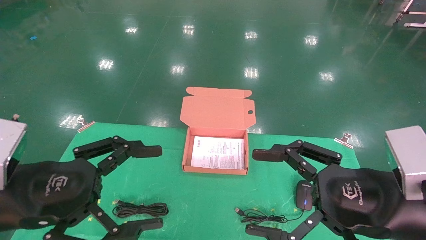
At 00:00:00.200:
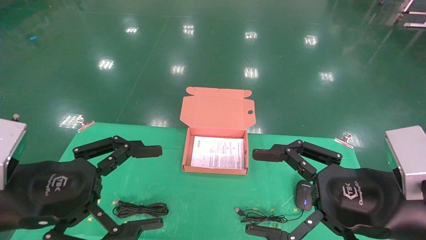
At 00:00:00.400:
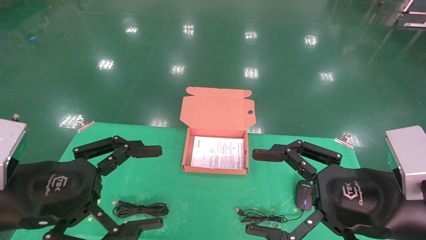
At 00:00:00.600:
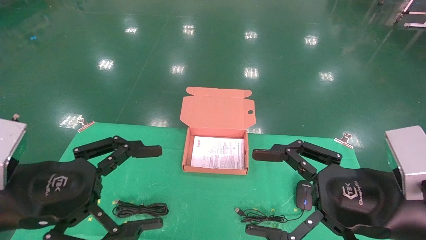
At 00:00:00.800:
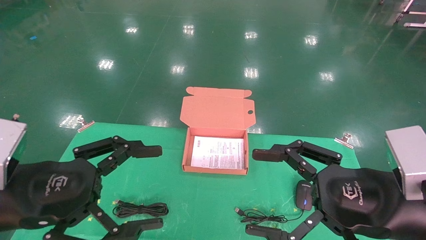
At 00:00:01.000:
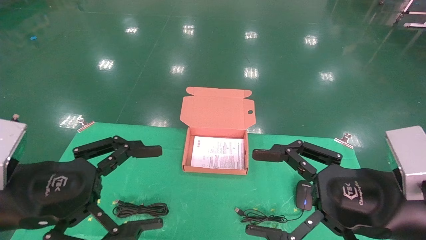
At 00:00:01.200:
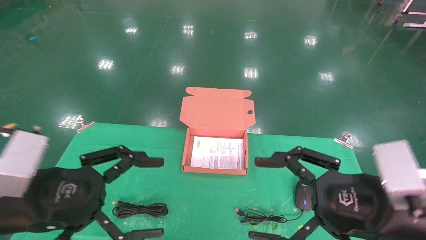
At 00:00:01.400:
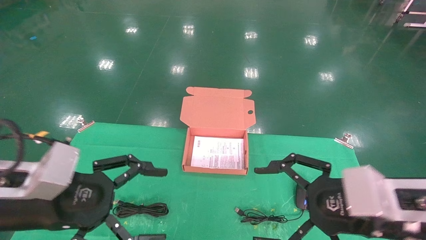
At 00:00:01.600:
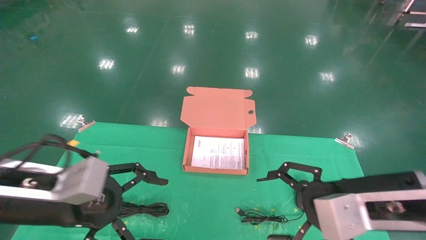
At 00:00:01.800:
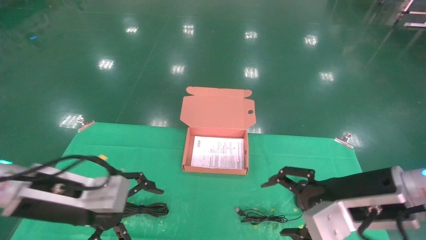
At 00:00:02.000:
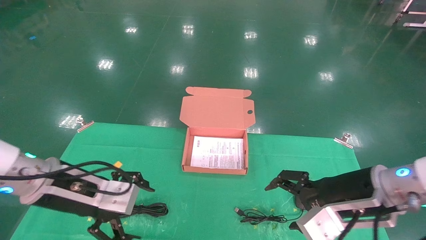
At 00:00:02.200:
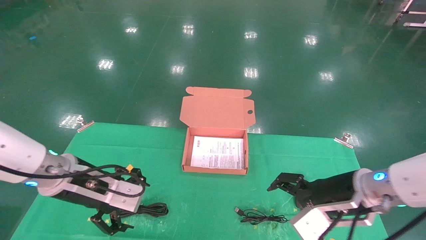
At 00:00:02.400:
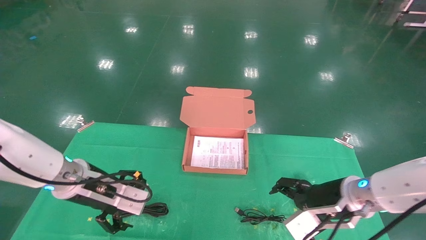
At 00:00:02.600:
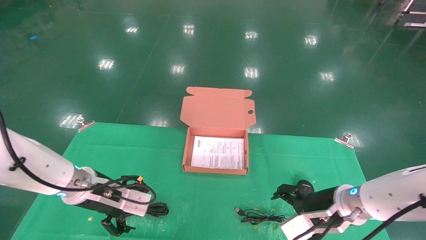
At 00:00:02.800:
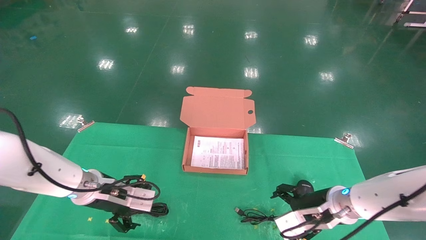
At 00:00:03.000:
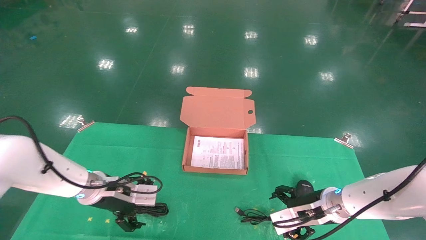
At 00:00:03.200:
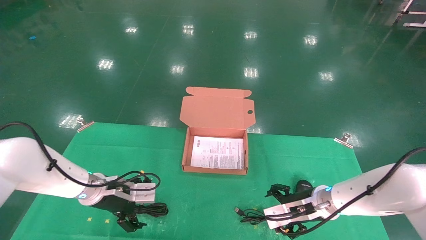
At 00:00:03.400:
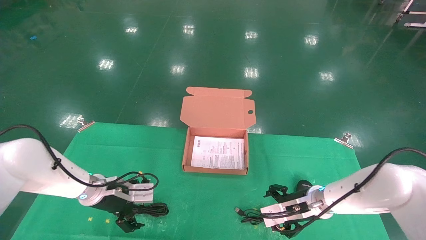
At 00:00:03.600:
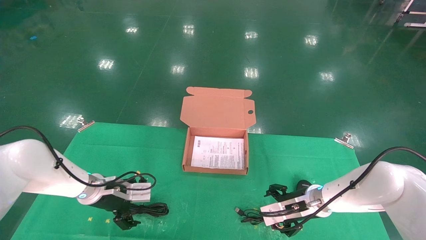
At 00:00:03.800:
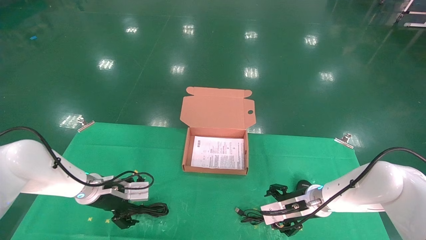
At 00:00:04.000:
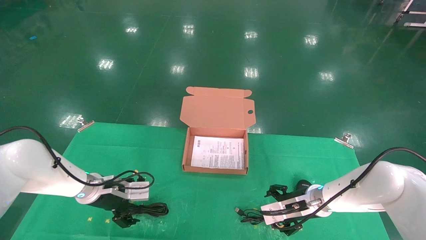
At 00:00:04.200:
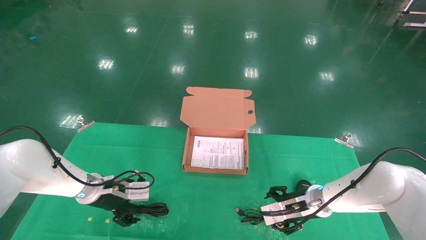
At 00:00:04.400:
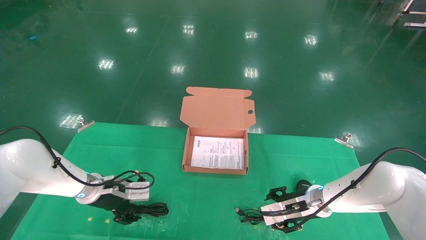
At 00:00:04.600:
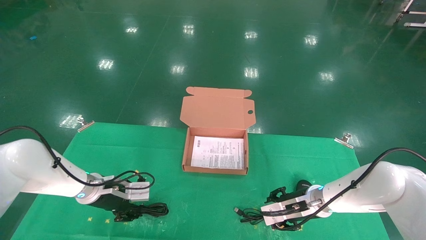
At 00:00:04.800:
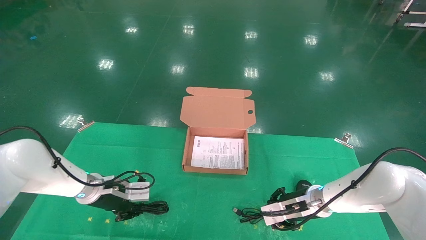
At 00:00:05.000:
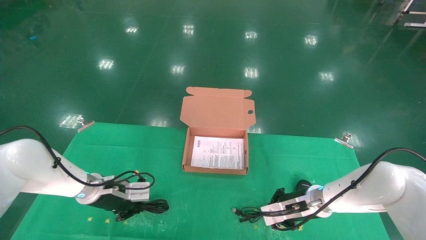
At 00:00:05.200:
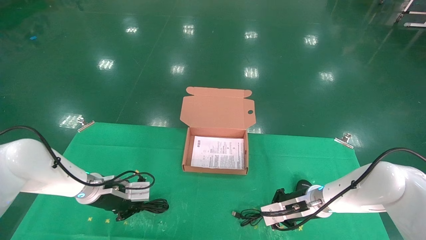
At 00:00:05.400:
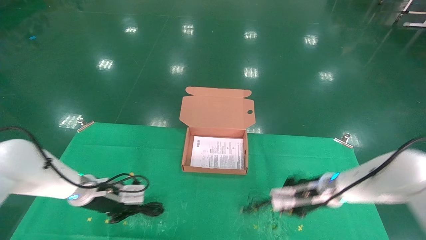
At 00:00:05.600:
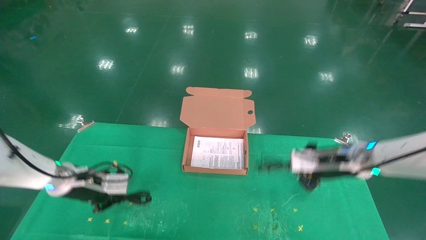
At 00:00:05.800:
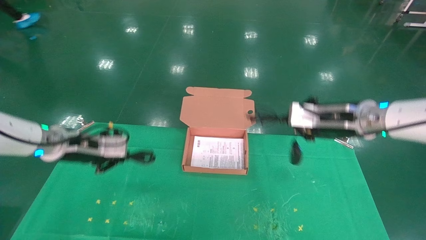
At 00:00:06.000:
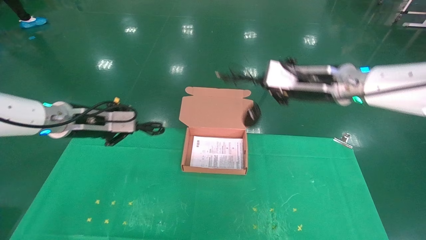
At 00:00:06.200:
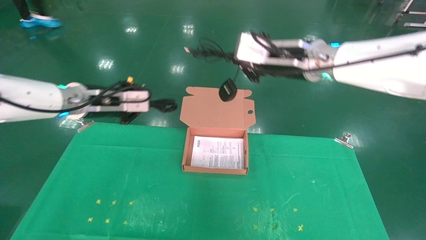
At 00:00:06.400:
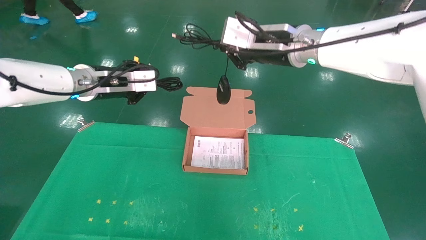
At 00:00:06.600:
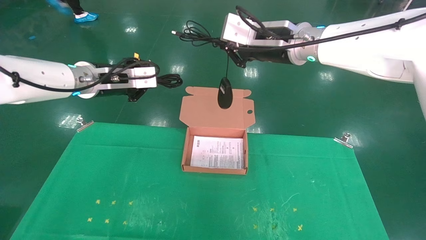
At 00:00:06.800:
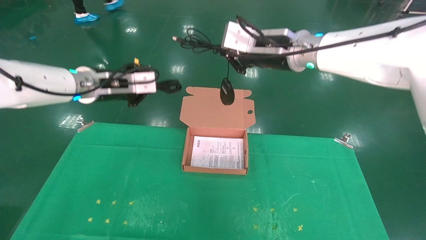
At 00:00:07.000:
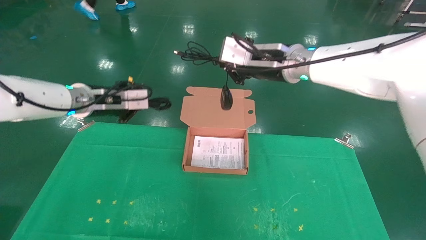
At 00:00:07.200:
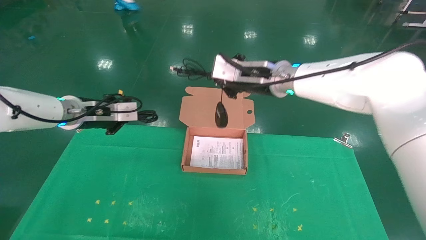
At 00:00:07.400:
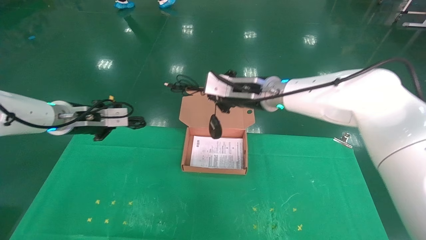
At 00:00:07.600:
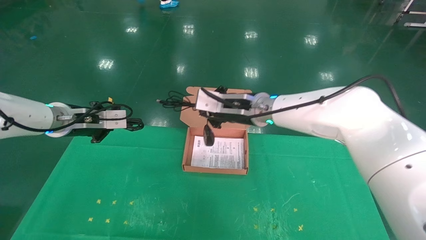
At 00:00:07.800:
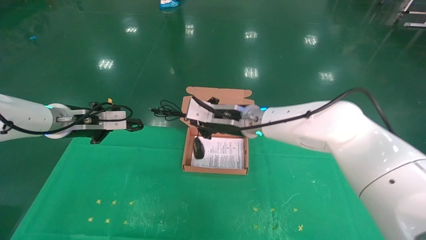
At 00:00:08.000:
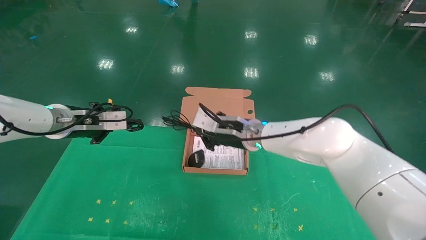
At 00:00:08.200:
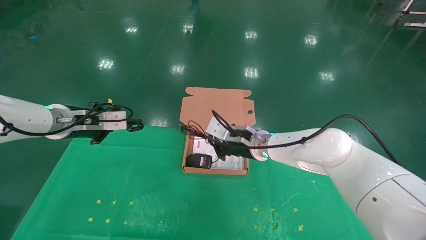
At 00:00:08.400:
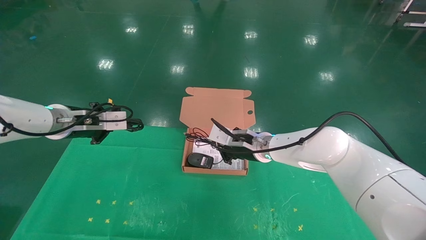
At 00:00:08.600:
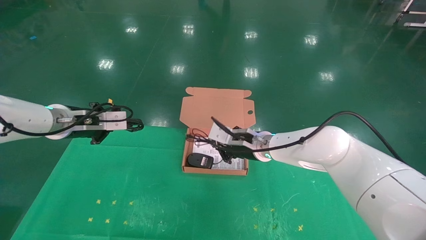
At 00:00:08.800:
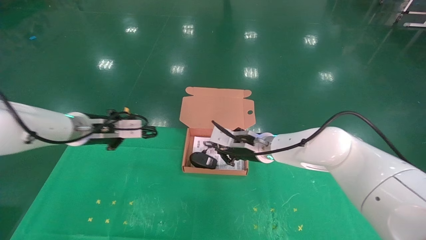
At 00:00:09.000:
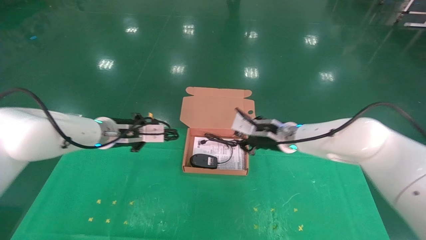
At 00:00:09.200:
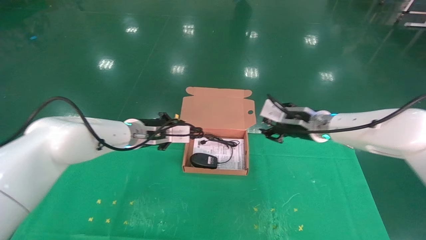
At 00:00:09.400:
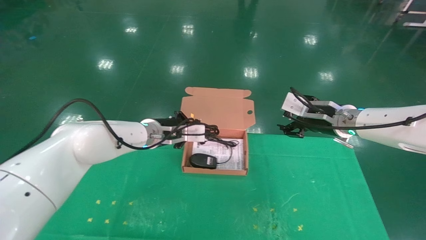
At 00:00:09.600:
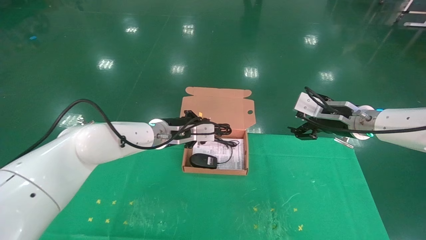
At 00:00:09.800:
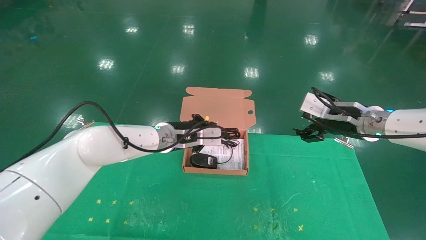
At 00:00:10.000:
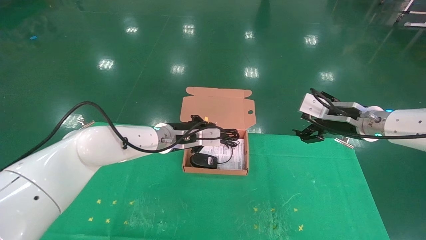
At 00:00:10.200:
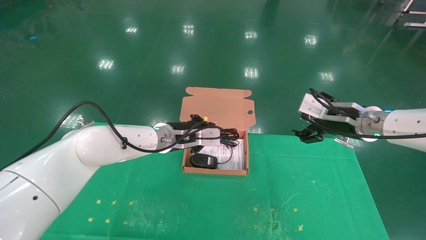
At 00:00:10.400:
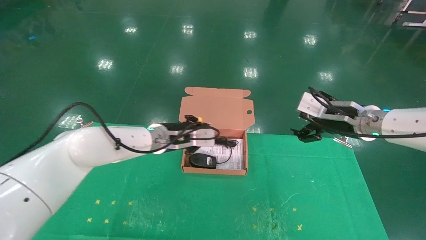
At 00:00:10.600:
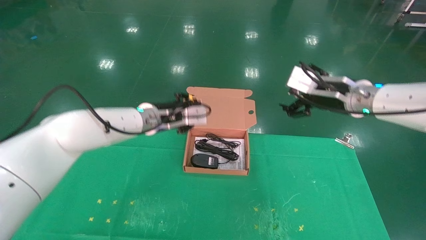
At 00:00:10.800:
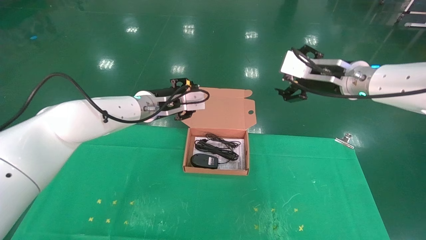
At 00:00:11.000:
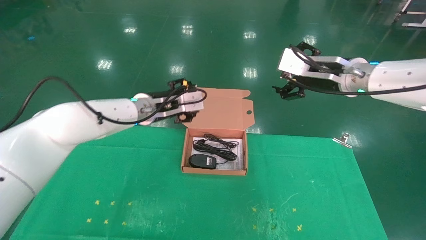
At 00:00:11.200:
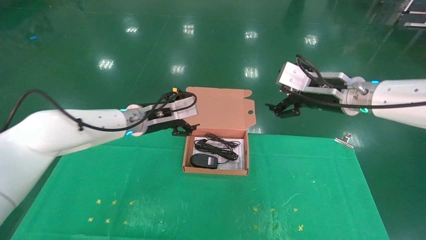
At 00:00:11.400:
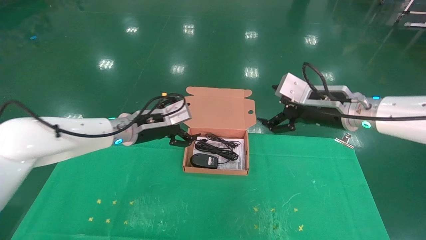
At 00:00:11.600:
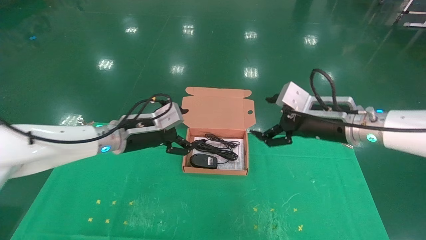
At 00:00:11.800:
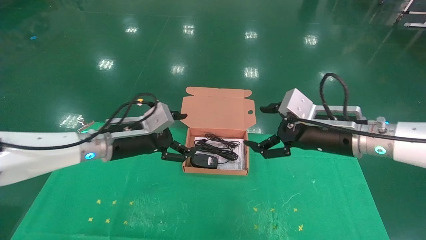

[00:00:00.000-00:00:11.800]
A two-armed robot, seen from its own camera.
Task of the whole recording: grasp data cable left put into box grasp mouse right put into box.
Step, 00:00:00.800 to 00:00:05.000: Grab and pick up both the mouse and power cord from the accessory packaging area at the same time.
Step, 00:00:05.200 to 00:00:10.200: Place the mouse and power cord into the box.
00:00:00.000 to 00:00:01.400: There are only small adjustments of the grippers.
00:00:01.400 to 00:00:03.000: Both grippers move forward and downward, approximately 25 cm.
00:00:03.000 to 00:00:04.400: The grippers stay close to where they were, moving slightly.
00:00:04.400 to 00:00:06.000: The grippers both shift upward by some 25 cm. The right gripper closes. Meanwhile the left gripper closes up.
00:00:06.000 to 00:00:07.400: The right gripper heads to the left and downward, covering some 15 cm.
00:00:07.400 to 00:00:08.800: The right gripper shifts roughly 10 cm downward and to the right, while the left gripper travels to the right by some 5 cm.
00:00:08.800 to 00:00:10.400: The right gripper moves to the right and upward, approximately 15 cm, and opens up. The left gripper travels to the right by some 10 cm.
00:00:10.400 to 00:00:11.800: The left gripper travels to the left and backward by approximately 10 cm, and opens up. Meanwhile the right gripper is displaced backward by some 5 cm.
